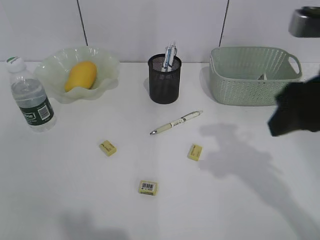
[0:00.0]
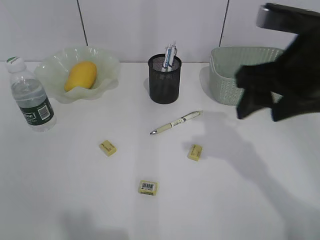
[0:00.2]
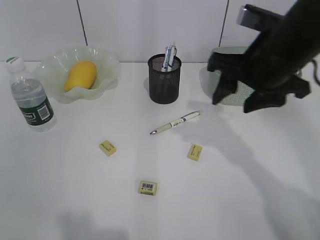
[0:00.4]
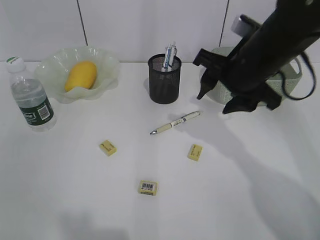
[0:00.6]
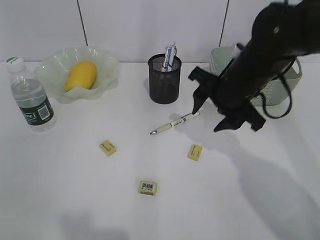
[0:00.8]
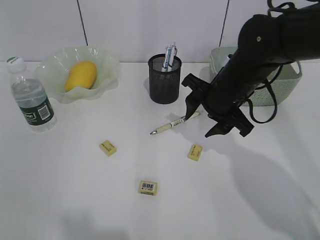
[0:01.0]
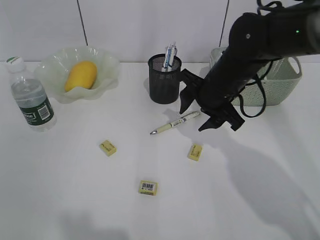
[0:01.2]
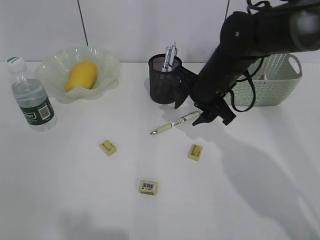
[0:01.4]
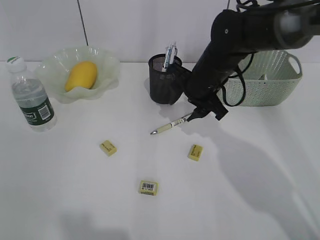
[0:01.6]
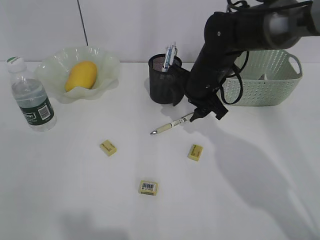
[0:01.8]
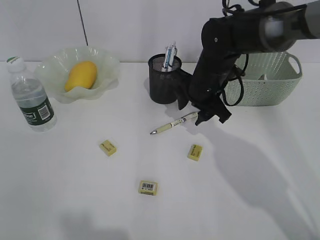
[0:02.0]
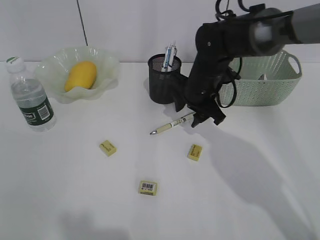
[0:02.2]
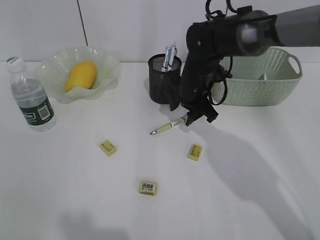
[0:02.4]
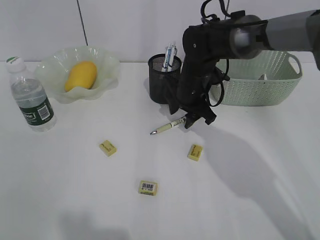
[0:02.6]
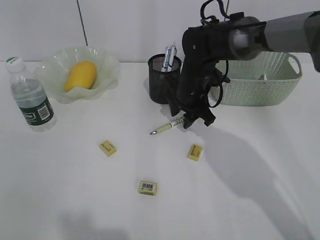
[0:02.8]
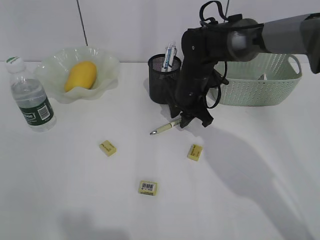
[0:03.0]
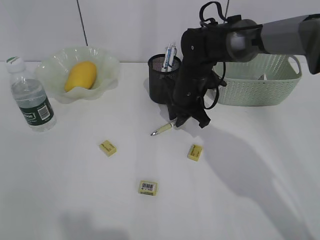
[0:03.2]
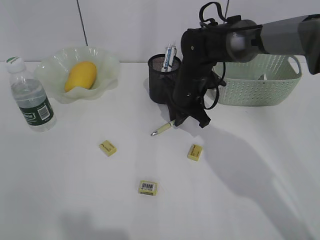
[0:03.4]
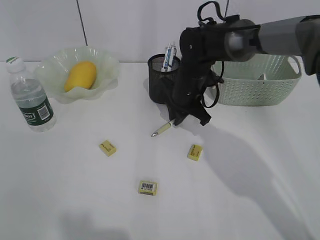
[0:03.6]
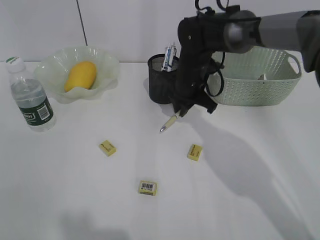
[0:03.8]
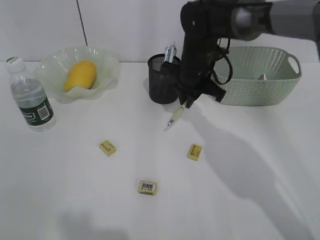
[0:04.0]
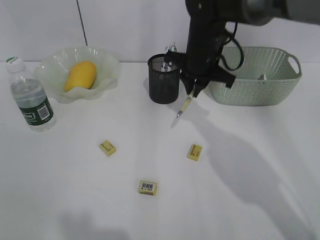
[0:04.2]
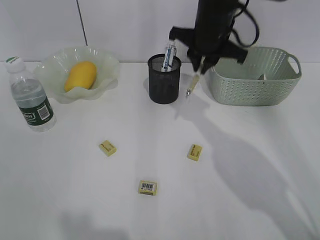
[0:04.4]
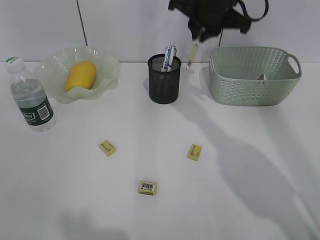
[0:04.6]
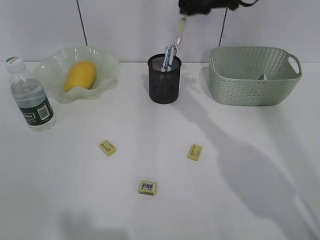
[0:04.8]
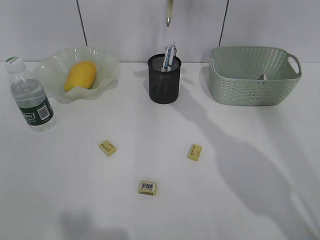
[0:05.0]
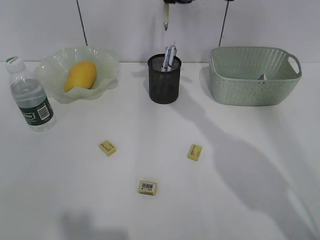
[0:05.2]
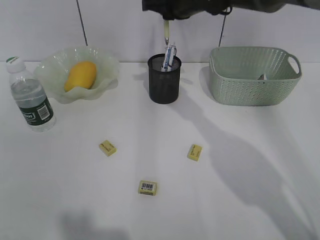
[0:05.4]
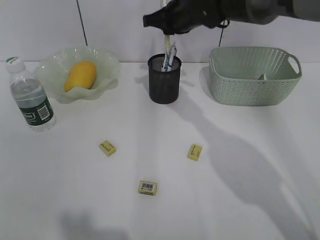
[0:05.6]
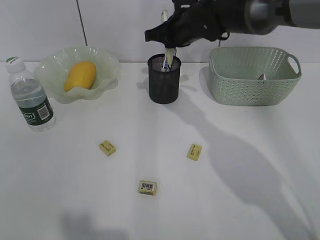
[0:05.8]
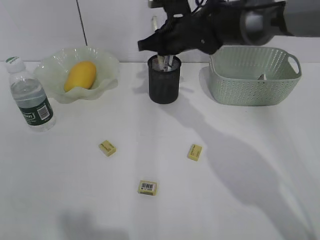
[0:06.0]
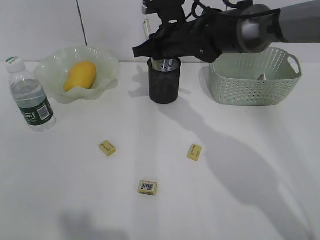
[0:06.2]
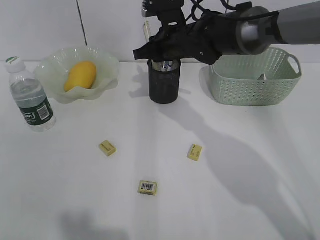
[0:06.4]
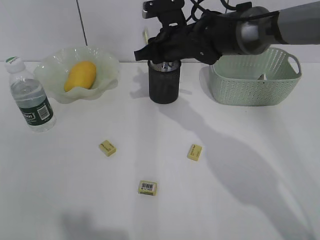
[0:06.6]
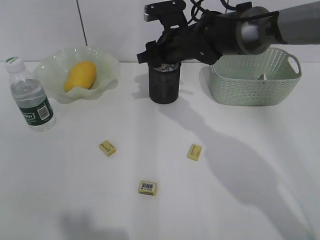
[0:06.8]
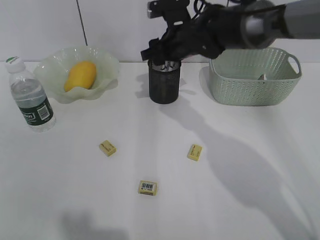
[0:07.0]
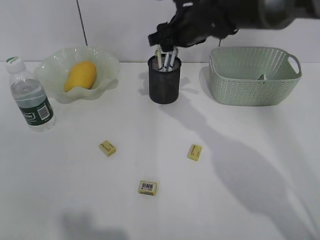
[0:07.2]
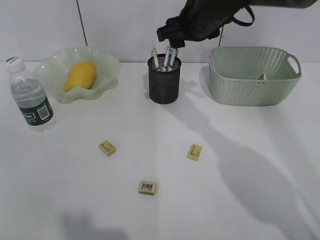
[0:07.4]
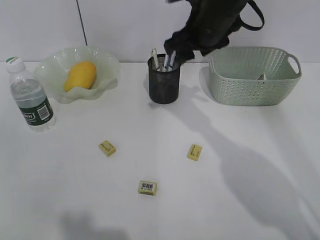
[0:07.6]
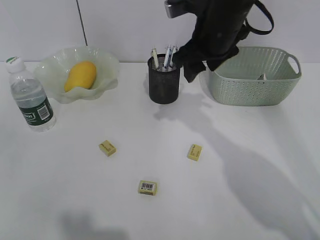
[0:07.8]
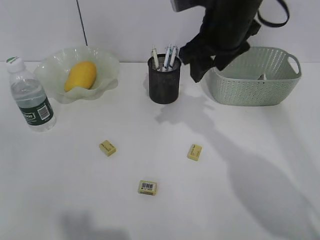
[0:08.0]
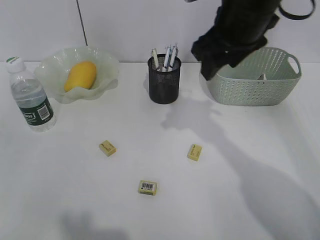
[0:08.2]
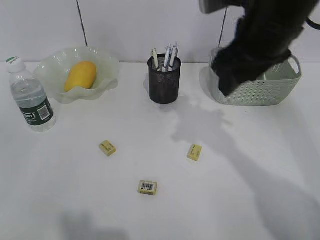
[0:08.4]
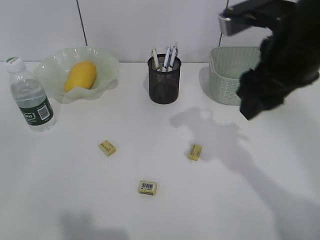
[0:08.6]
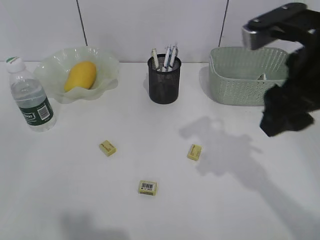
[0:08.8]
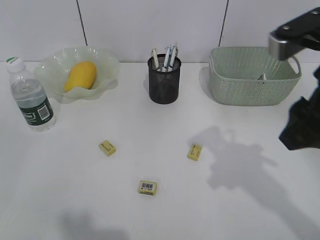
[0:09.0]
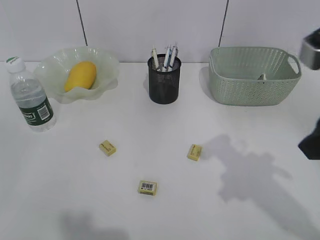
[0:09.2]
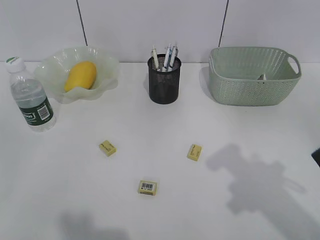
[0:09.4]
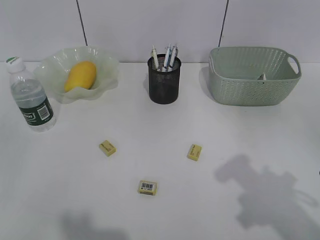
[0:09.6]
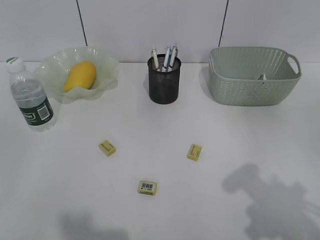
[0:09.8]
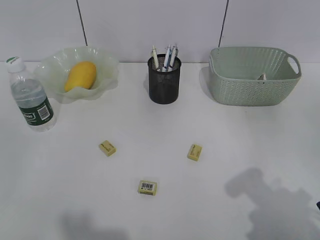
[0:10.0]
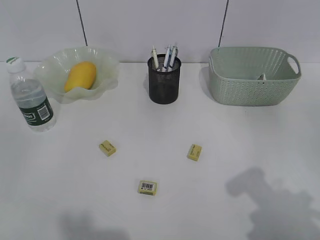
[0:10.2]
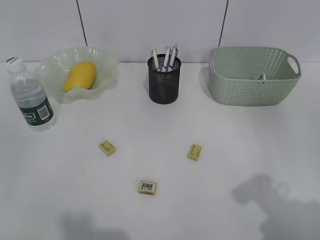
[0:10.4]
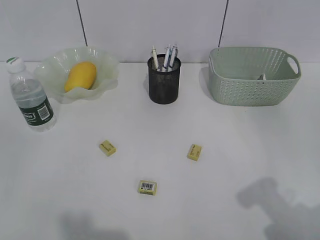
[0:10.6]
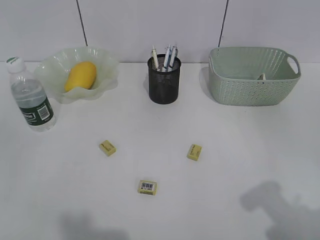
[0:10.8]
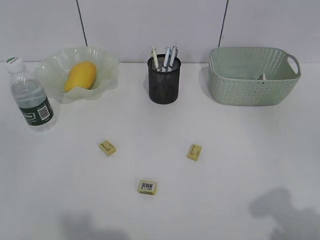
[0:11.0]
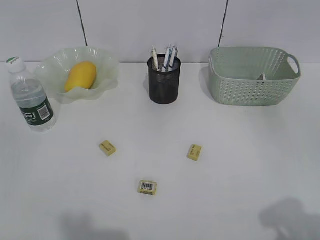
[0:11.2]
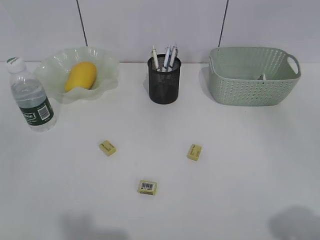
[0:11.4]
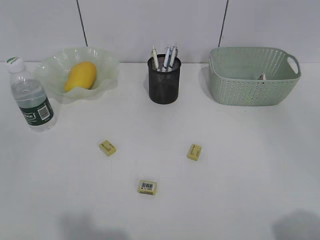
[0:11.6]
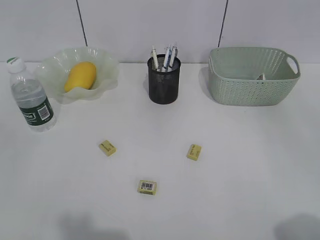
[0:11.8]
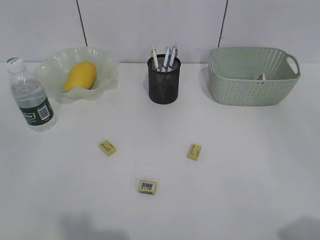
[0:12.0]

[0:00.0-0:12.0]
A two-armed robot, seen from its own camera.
Step, 0:00.0 to 0:03.6: Grasp the yellow pen with right gripper.
Step, 0:03.8 to 0:07.0: Place the yellow pen in pen holder with right gripper.
0:00.0 to 0:01.6: The right gripper is displaced forward, downward and to the left by approximately 25 cm.
0:01.6 to 0:03.0: The right gripper moves roughly 5 cm.
0:03.0 to 0:04.4: The right gripper is displaced upward by approximately 15 cm, and closes its fingers.
0:04.4 to 0:06.0: The right gripper moves some 5 cm.
0:06.0 to 0:07.6: The right gripper heads upward and backward, covering about 10 cm, and opens its fingers.
0:07.6 to 0:09.0: The right gripper is displaced backward and to the right by some 20 cm.
0:09.0 to 0:10.4: The right gripper travels backward and to the right by roughly 10 cm.
0:10.4 to 0:12.0: The right gripper shifts approximately 10 cm backward and to the right.

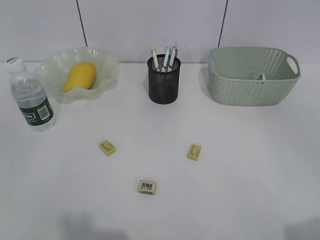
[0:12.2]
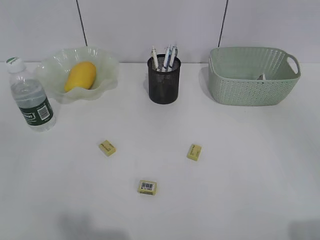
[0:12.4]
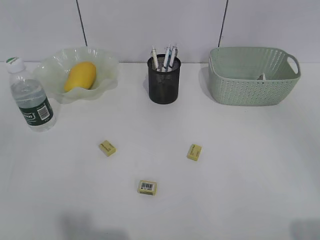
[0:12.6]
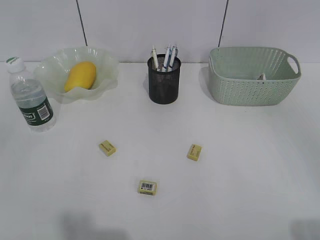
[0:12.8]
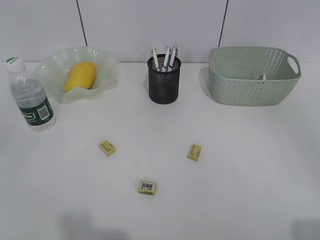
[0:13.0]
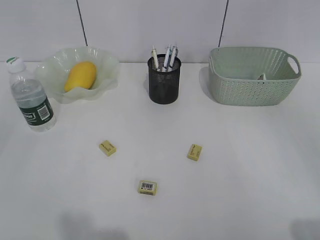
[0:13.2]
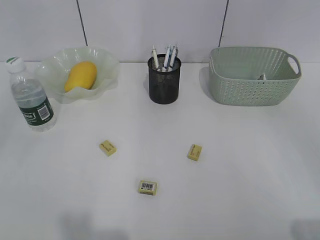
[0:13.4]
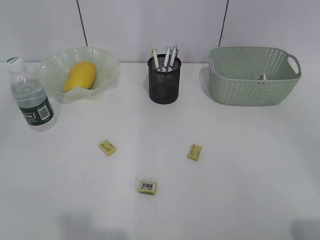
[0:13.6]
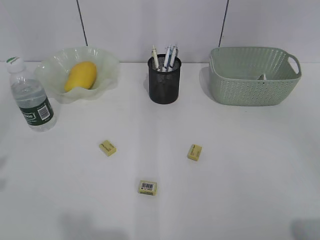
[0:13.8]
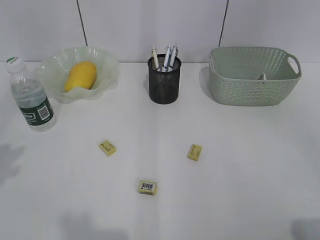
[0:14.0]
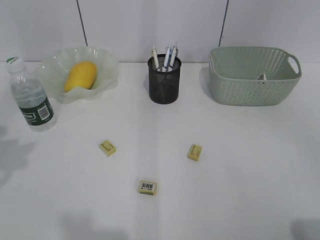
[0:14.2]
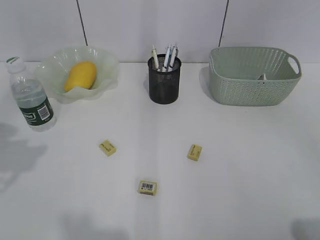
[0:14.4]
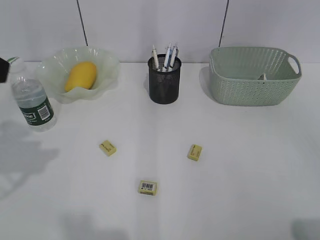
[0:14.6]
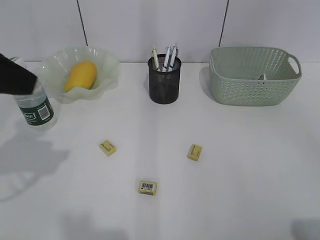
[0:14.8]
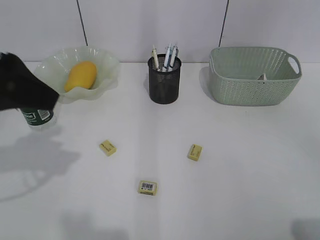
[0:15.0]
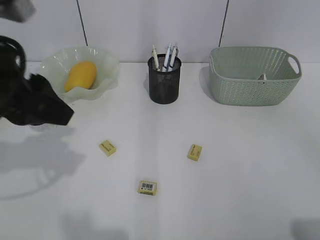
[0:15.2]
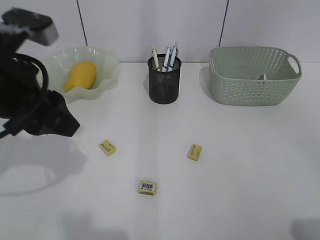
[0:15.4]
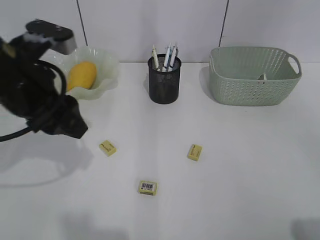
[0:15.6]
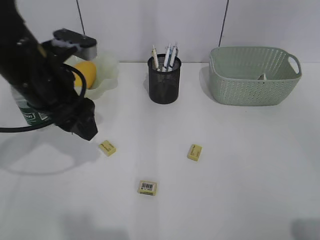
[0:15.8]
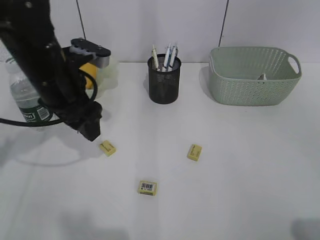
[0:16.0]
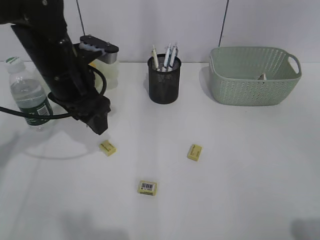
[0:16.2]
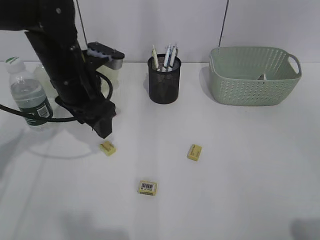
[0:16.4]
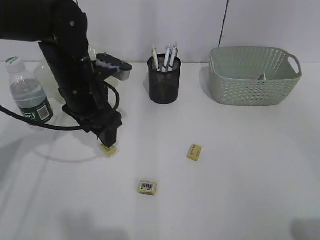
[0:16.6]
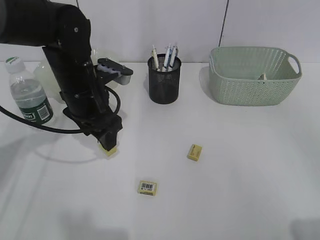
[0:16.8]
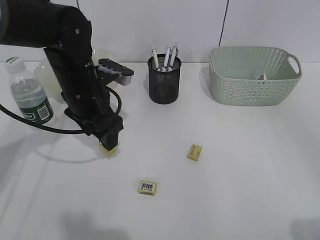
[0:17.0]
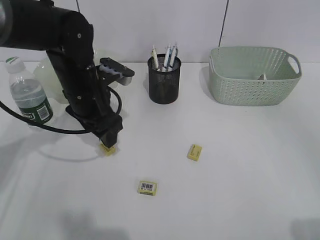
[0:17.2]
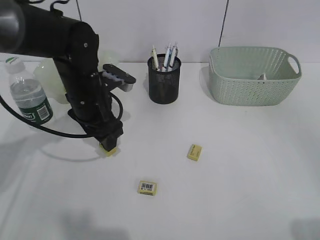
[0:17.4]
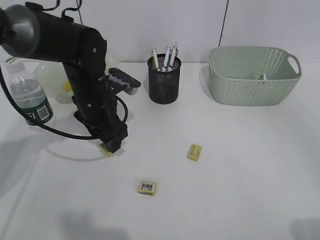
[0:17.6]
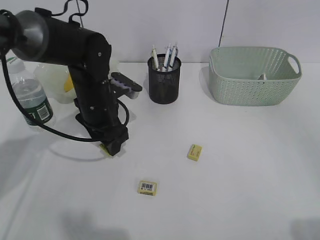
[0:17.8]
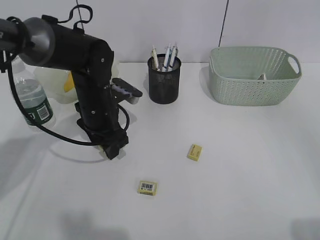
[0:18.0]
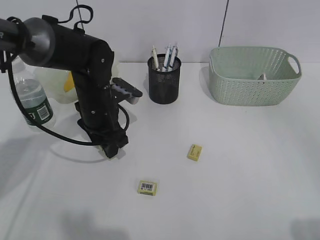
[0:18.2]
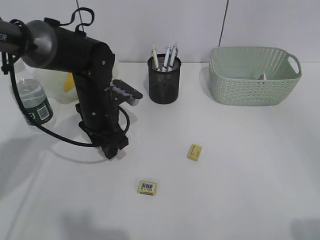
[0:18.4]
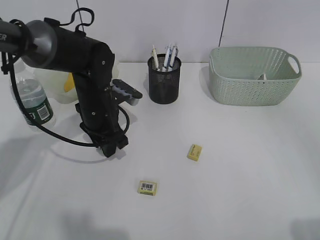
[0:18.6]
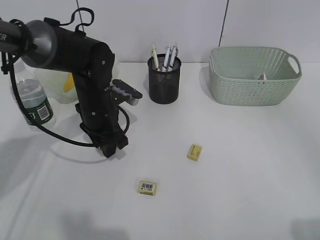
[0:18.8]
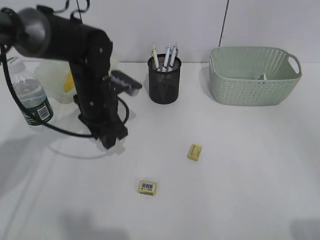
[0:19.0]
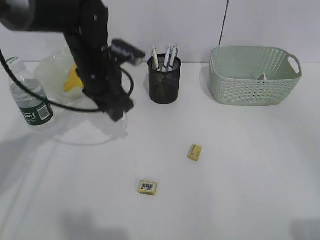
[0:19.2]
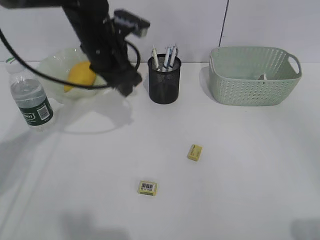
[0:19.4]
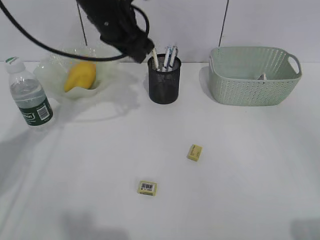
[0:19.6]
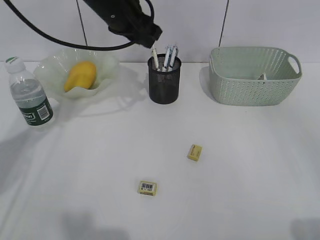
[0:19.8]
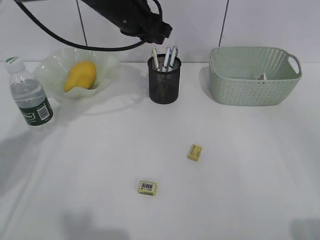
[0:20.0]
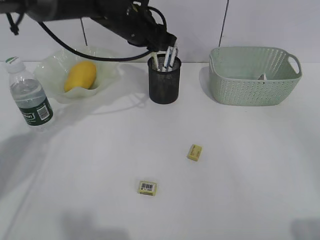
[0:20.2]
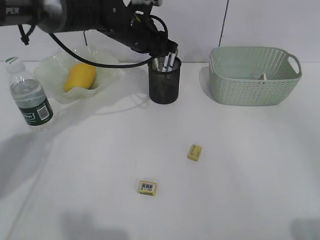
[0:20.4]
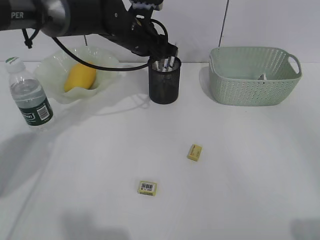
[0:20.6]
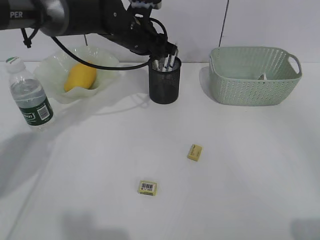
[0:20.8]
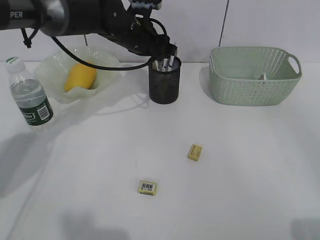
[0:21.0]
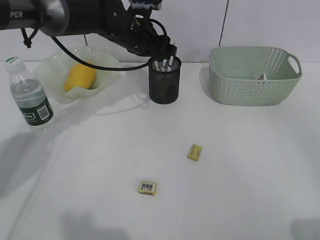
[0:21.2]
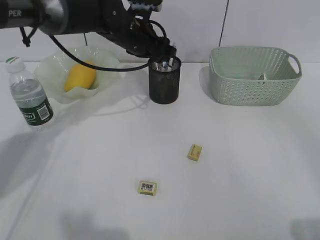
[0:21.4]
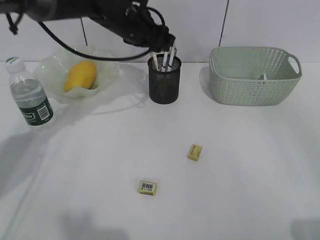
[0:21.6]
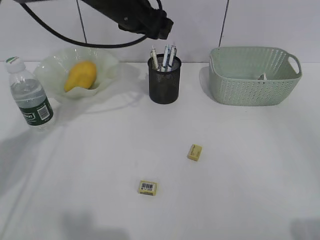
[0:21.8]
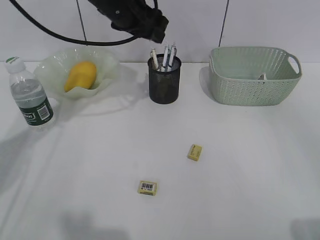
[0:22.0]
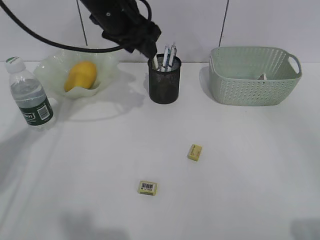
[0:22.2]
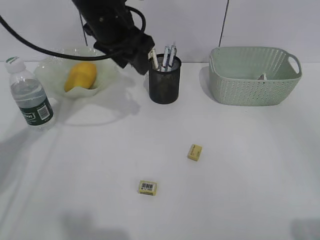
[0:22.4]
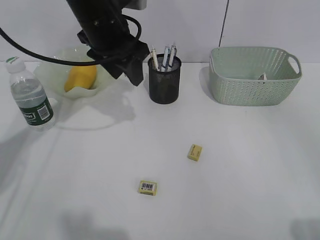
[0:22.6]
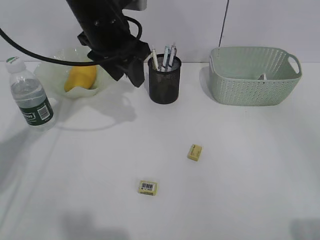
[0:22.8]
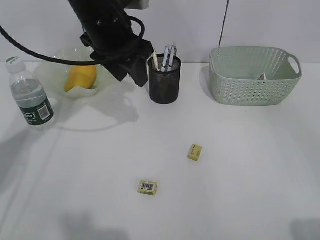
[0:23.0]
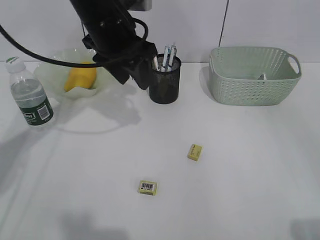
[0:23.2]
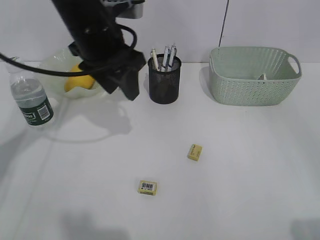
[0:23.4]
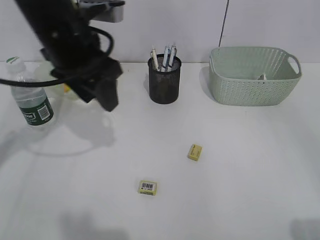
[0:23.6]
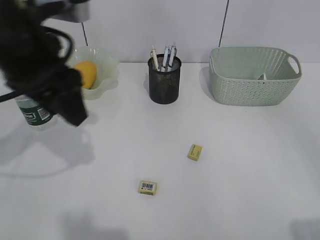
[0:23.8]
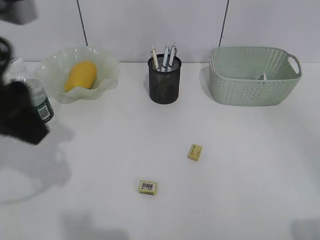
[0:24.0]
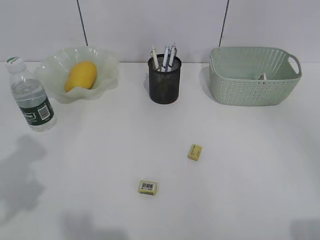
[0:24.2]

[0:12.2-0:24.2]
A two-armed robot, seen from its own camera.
Step, 0:12.2 to 0:18.6: Grasp the eraser with left gripper.
Step, 0:18.8 to 0:21.0: Place the eraser in pen holder with left gripper.
0:13.8 to 0:15.2: The left gripper heads forward, to the right and downward, covering about 15 cm.
0:15.2 to 0:16.6: The left gripper travels forward, downward and to the right by roughly 15 cm.
0:16.6 to 0:18.2: The left gripper goes about 5 cm downward.
0:18.2 to 0:19.8: The left gripper heads upward, covering some 15 cm.
0:19.8 to 0:21.2: The left gripper is displaced downward by some 5 cm.
0:21.2 to 0:22.6: The left gripper is displaced backward and upward by some 10 cm.
0:22.6 to 0:24.2: The left gripper moves backward and to the left, about 30 cm.
